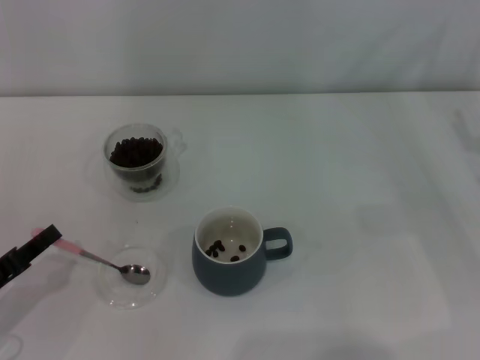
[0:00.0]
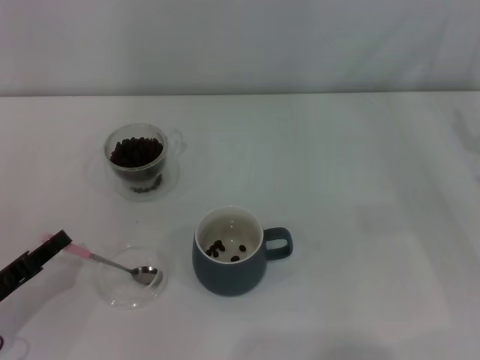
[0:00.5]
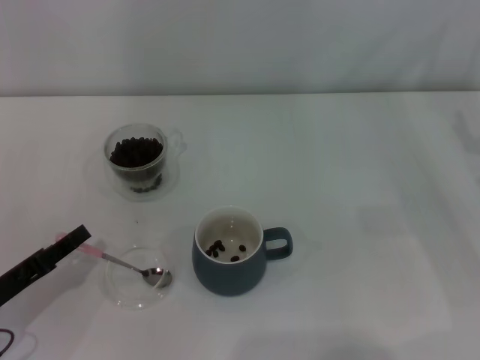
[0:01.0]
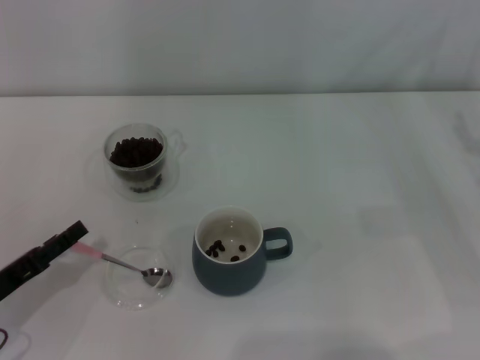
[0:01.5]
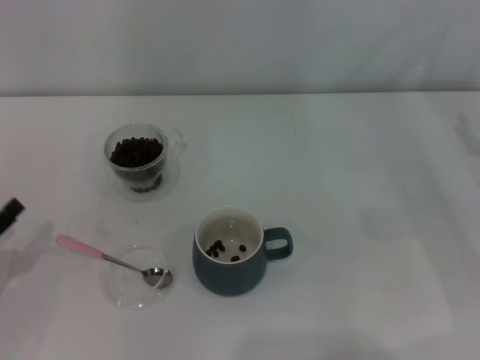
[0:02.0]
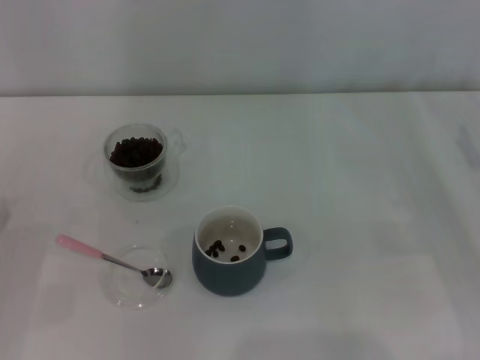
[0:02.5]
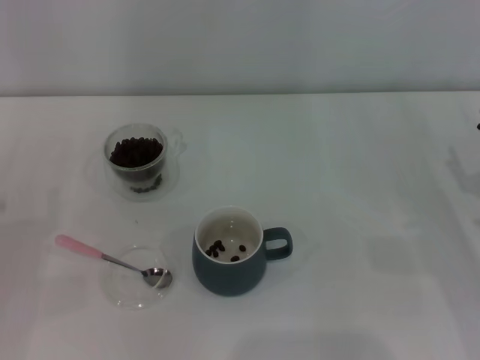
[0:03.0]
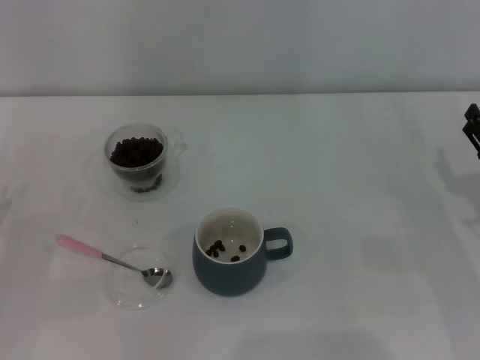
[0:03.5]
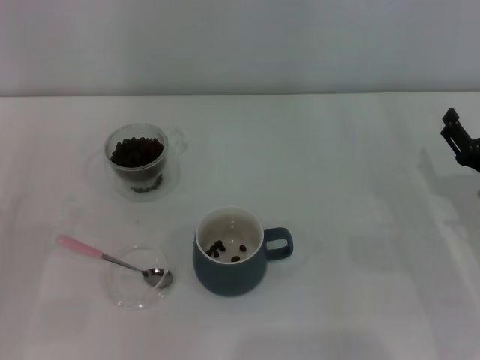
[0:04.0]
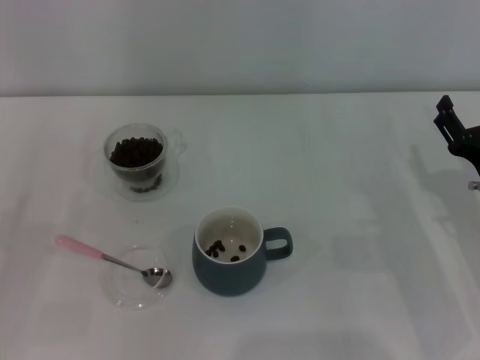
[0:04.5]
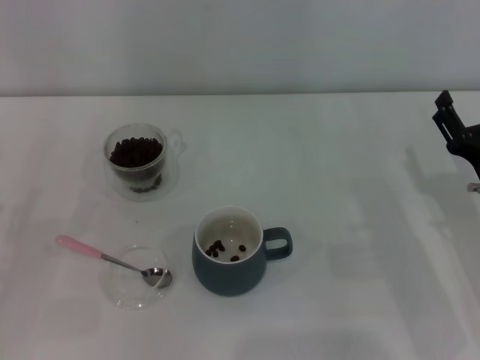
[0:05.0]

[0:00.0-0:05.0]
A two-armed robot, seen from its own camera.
Task of the whole recording: Use a pink spoon to take out the coffee beans from the glass and pour them into the gray cup.
0:00.0 to 0:02.5: The left gripper opens.
0:02.5 to 0:05.0: The right gripper travels to the left by approximately 5 cm.
